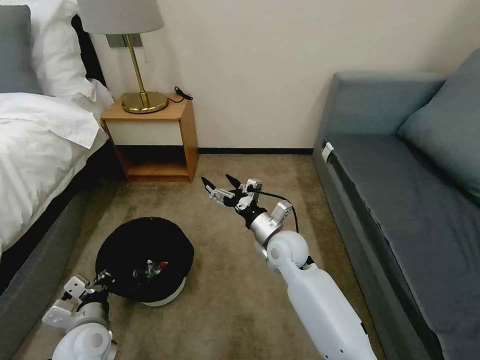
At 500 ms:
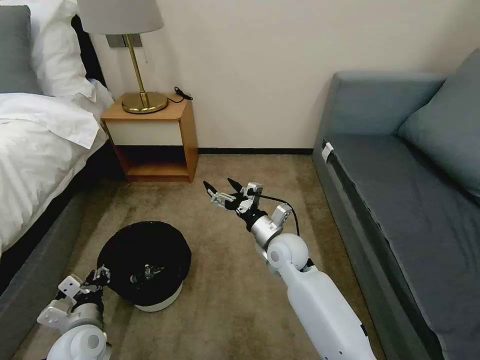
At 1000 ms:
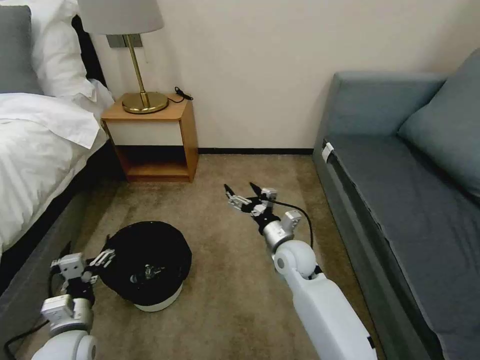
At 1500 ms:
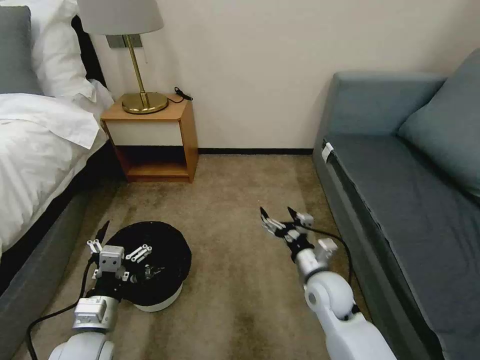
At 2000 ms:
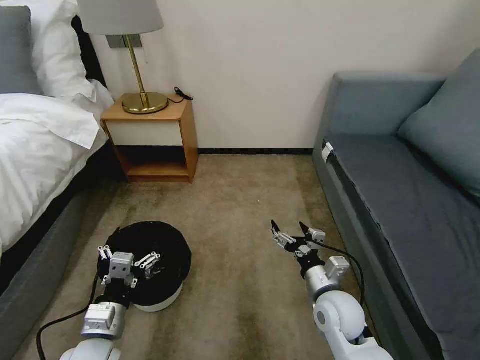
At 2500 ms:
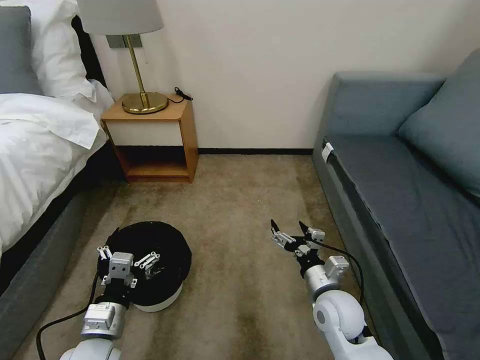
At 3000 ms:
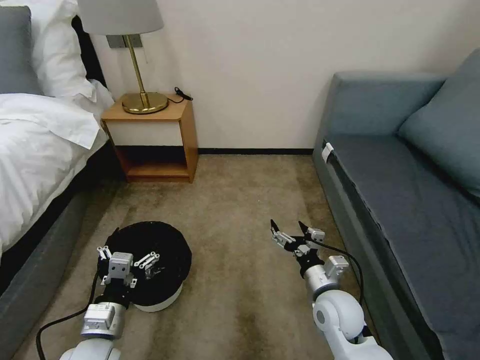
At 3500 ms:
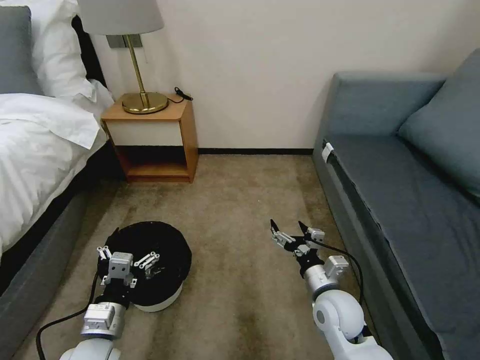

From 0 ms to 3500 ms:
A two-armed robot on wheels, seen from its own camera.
Task of the whole recording: Pick up the trash bin, then pick up the garbage on the floor and place it into the trash bin.
From 0 ms to 2000 ms: The left gripper ends up roughly 5 cm from where it was, and opens. Meanwhile the right gripper travels backward and to the right by about 15 cm.
From 2000 ms to 3500 ms: The two grippers keep their place.

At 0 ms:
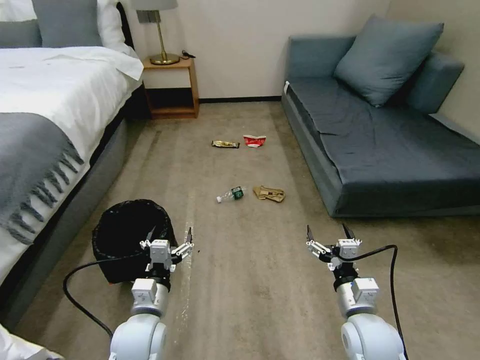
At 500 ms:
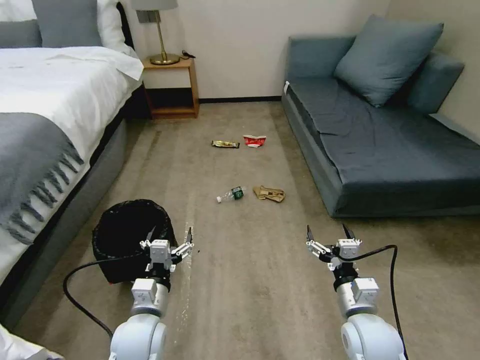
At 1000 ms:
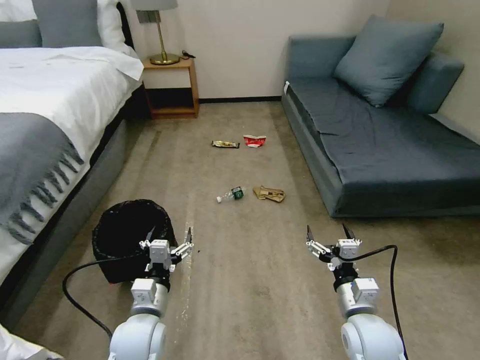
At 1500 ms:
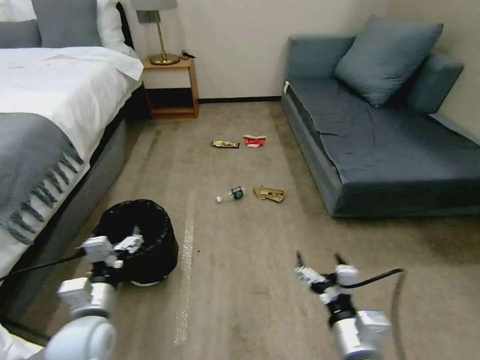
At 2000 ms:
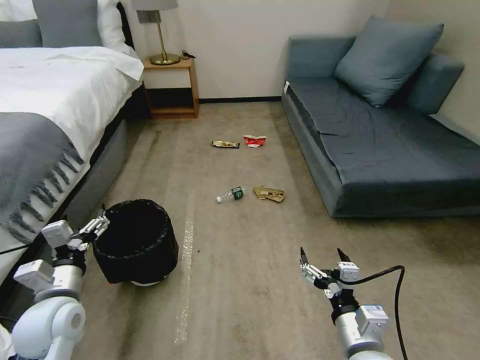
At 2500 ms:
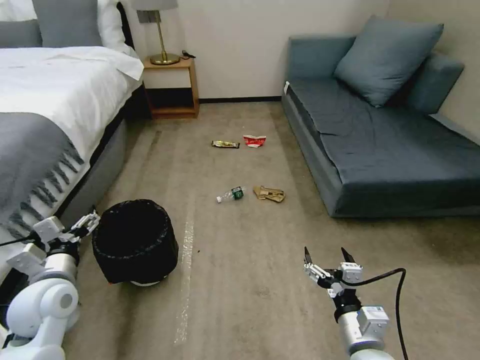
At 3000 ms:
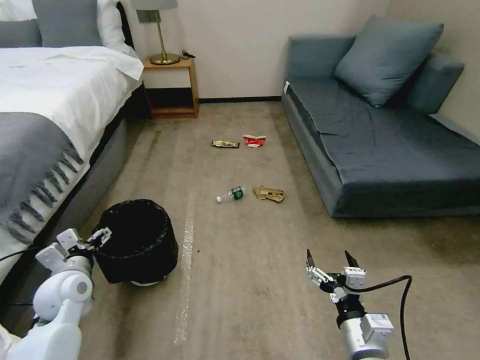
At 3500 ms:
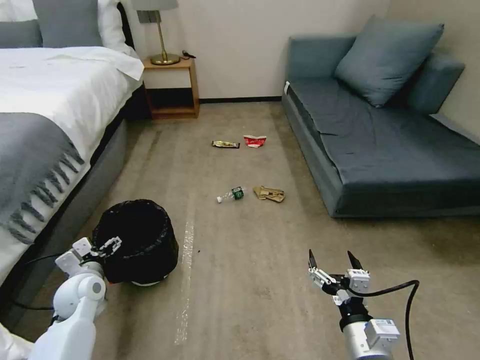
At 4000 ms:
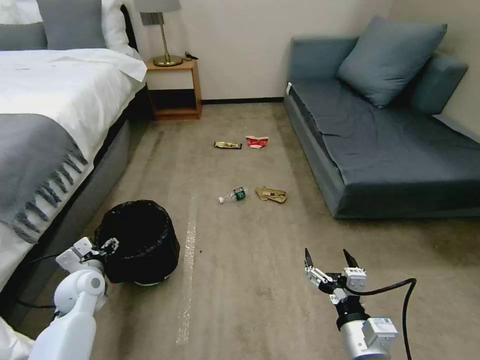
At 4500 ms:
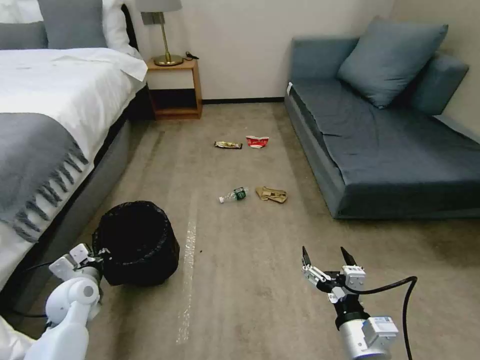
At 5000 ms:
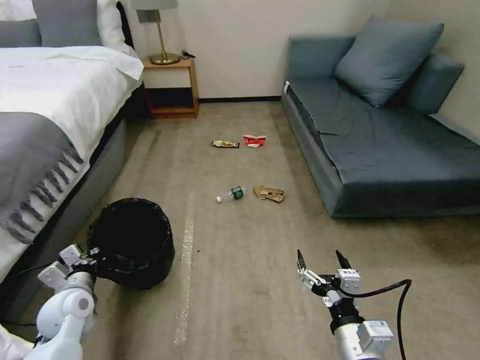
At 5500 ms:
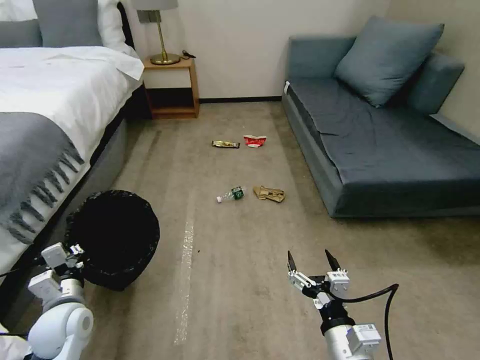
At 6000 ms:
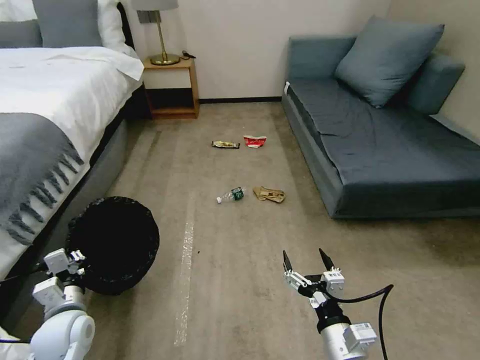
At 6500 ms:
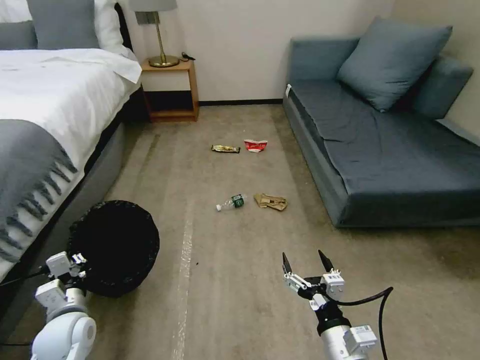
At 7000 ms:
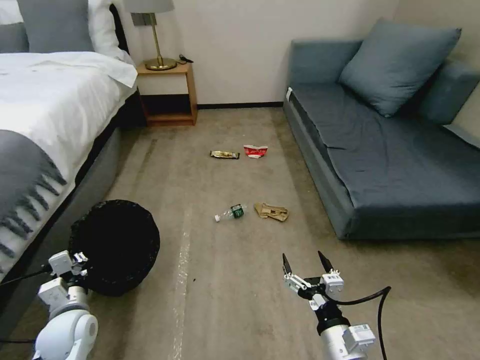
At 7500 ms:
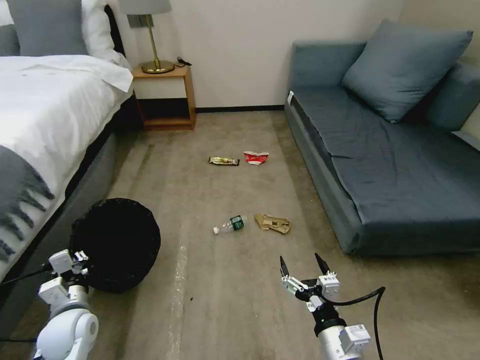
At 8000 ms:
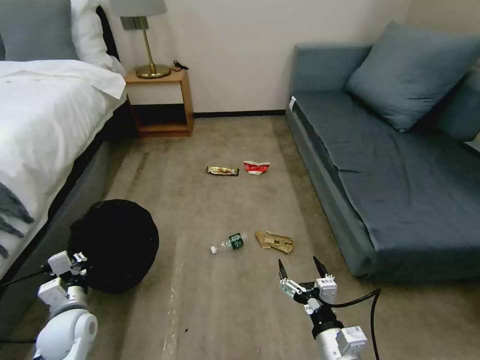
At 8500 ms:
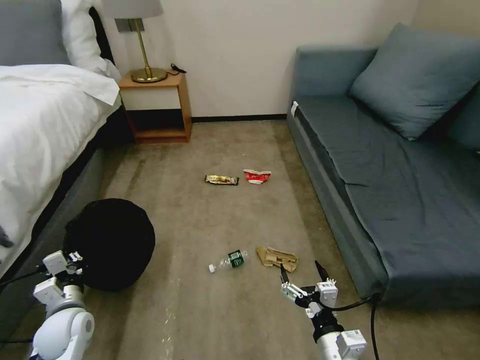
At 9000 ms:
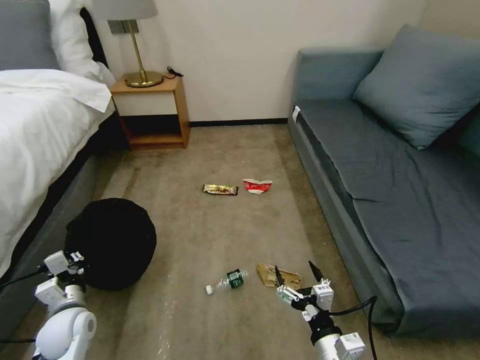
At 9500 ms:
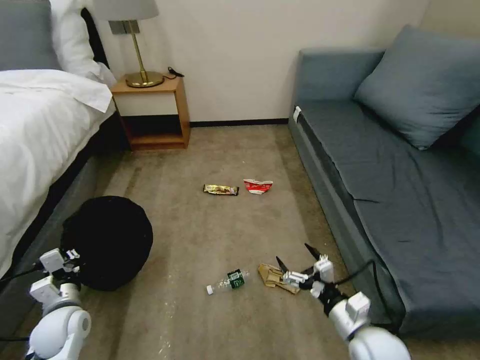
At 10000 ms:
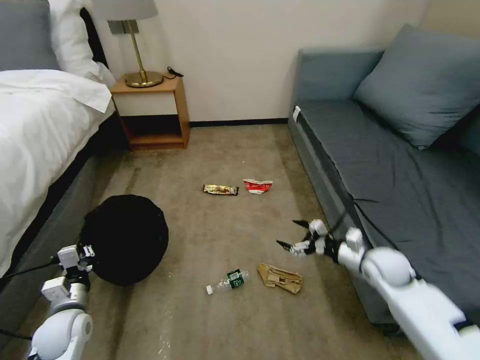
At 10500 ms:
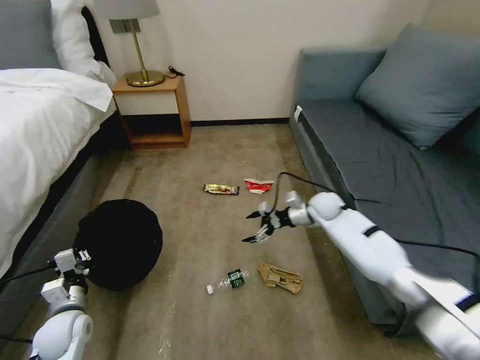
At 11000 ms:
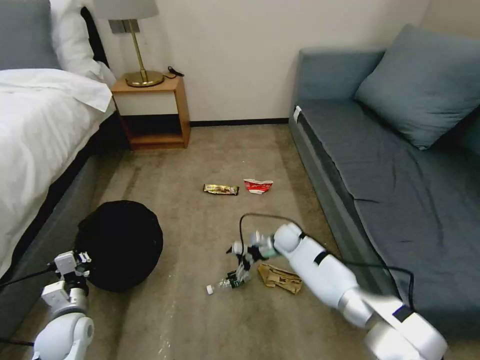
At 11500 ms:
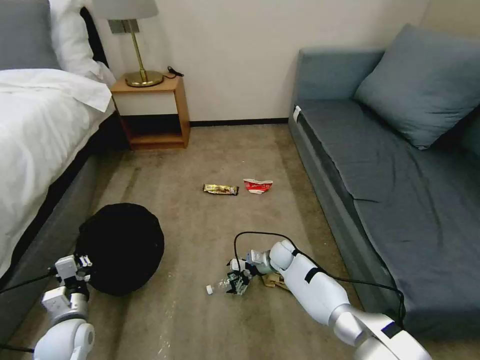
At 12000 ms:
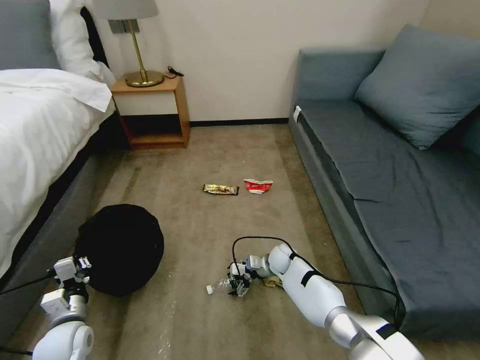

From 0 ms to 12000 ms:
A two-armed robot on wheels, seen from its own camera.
Task of the whole recording: Pick up the trash bin, then pick up the garbage on the floor and place it into the trash bin.
From 2000 ms to 4000 ms: The left gripper heads forward and downward, covering approximately 15 cm.
From 4000 ms to 6000 ms: The left gripper is displaced backward by roughly 10 cm, and closes.
From 8000 ms to 10000 ms: The right gripper goes approximately 30 cm forward and to the right.
From 10000 ms to 12000 ms: The right gripper travels to the left, downward and forward by approximately 30 cm.

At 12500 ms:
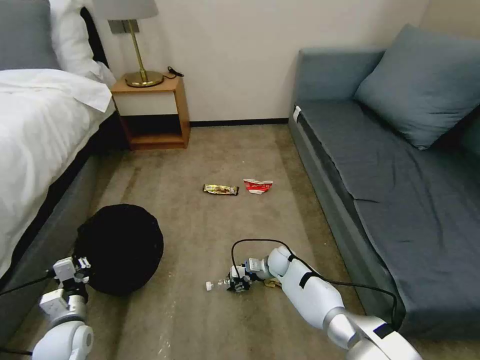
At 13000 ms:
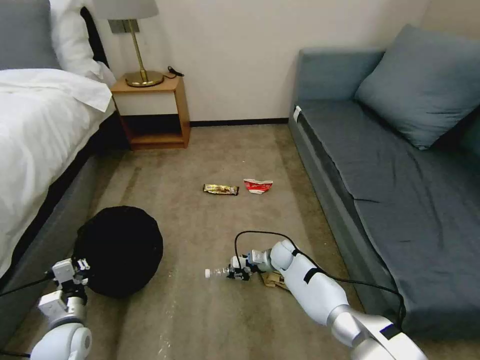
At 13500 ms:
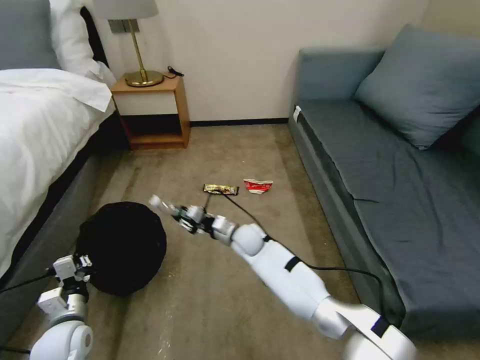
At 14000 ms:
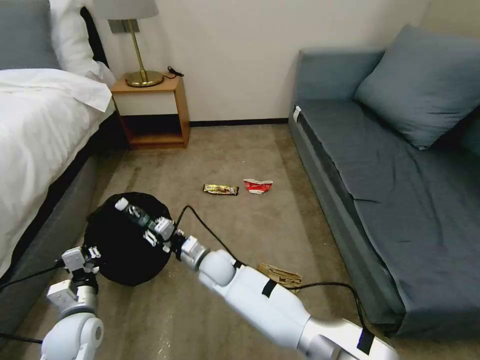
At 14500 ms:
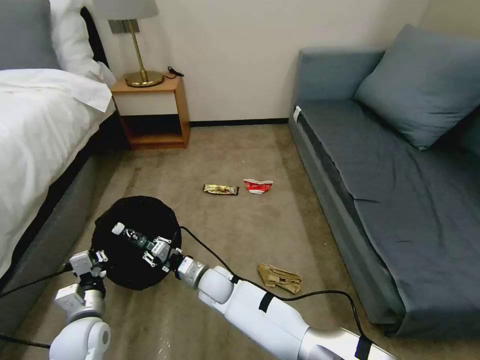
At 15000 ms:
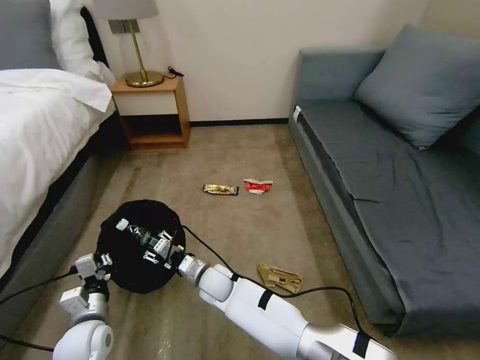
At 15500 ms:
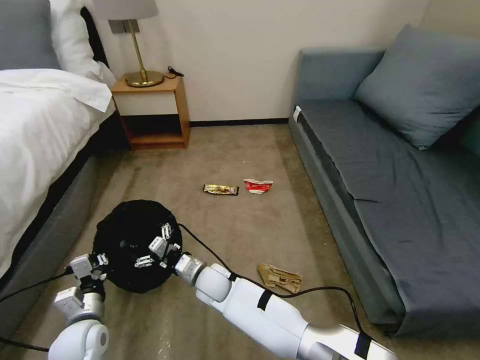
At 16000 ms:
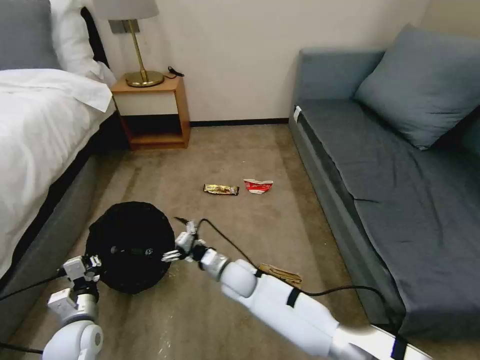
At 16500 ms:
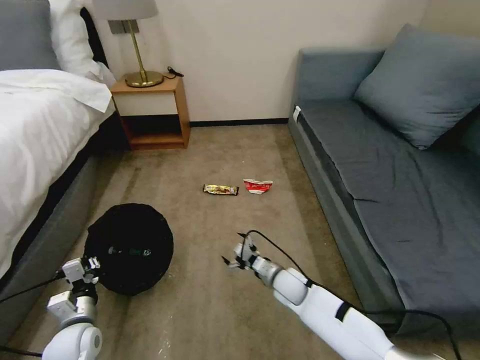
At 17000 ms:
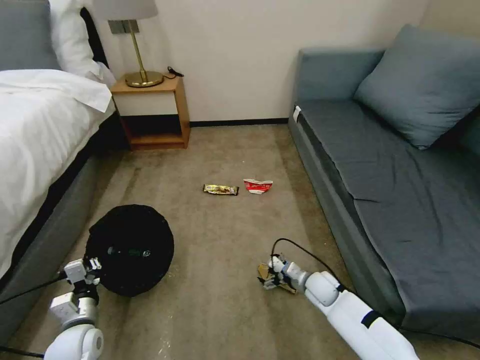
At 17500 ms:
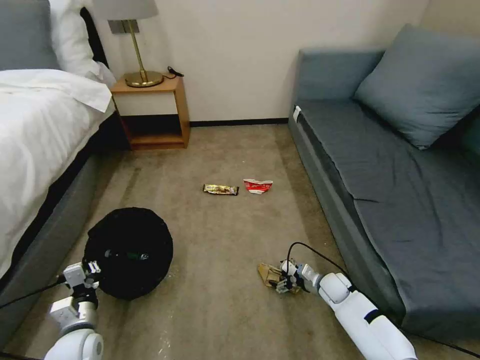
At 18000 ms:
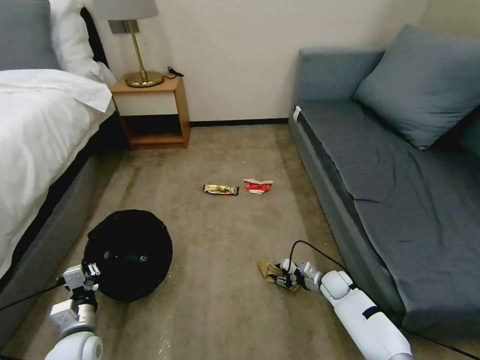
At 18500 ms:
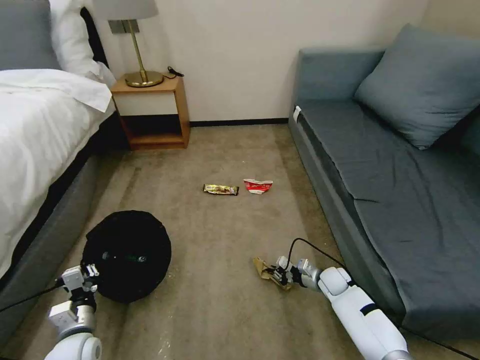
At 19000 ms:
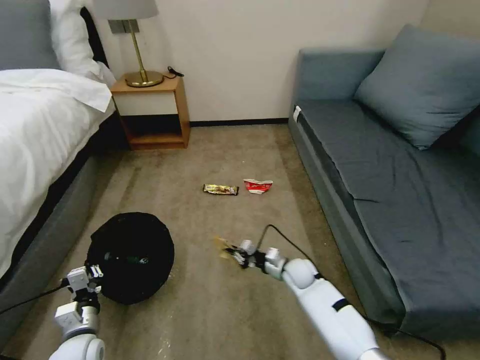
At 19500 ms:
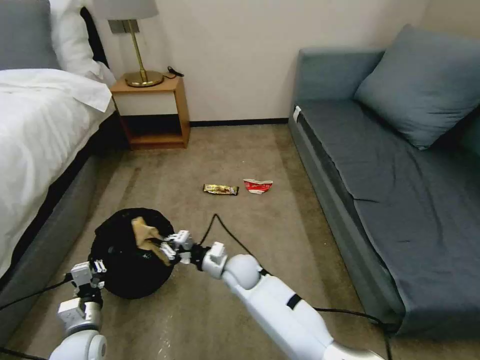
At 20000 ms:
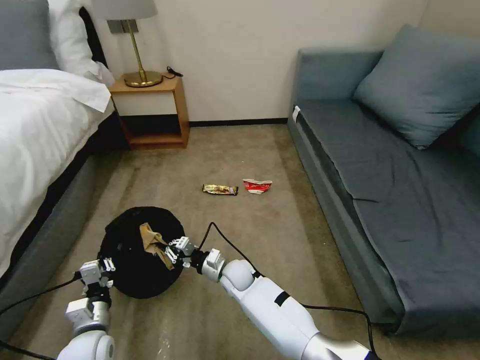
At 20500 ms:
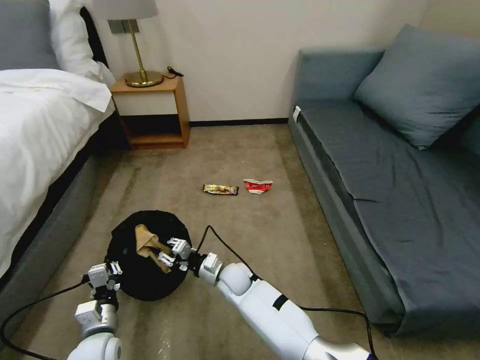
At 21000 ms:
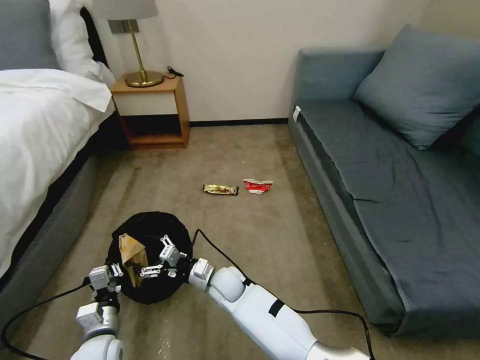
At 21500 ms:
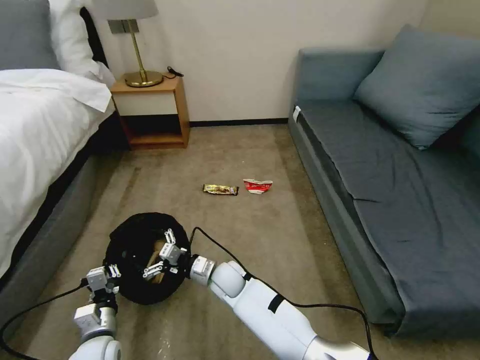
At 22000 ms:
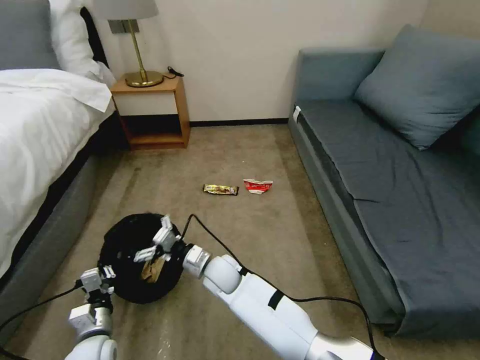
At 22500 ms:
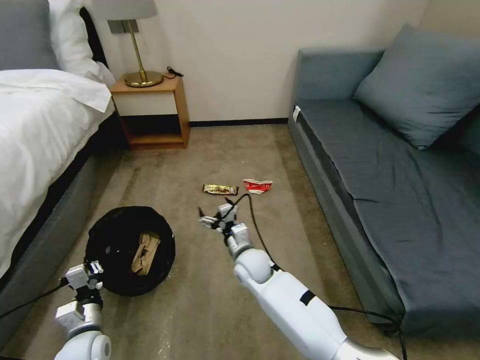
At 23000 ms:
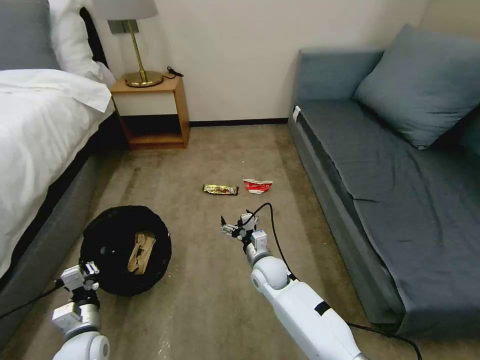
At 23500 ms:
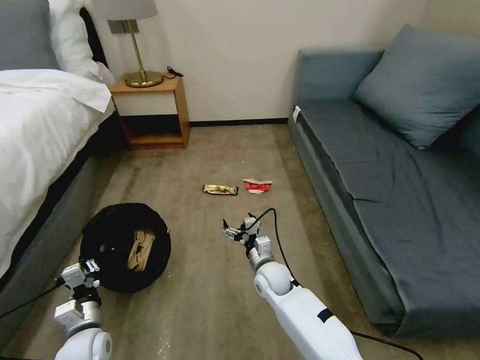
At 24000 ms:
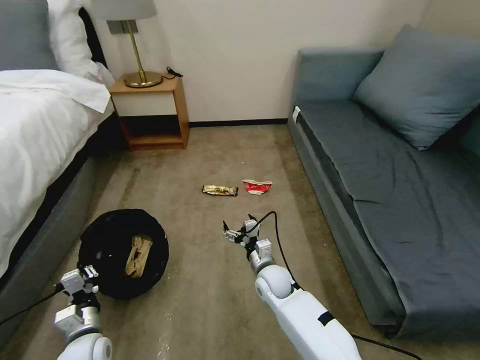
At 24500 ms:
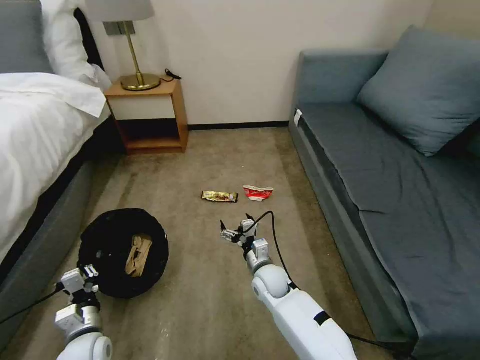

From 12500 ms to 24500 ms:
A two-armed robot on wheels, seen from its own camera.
Task of the whole recording: Pick up the trash bin, then pick up the garbage on the floor and place it into the trash bin.
From 12500 ms to 14500 ms: The right gripper shifts some 25 cm to the left, backward and upward. Meanwhile the left gripper goes approximately 5 cm to the right.
From 14500 ms to 16500 ms: The right gripper travels to the right by about 20 cm, and opens its fingers.
From 16500 ms to 18500 ms: The right gripper heads to the right, covering approximately 15 cm, and closes its fingers.
From 18500 ms to 20500 ms: The right gripper goes about 30 cm to the left.
From 20500 ms to 22500 ms: The right gripper heads upward and to the right, covering about 10 cm, and opens.
From 22500 ms to 24500 ms: The right gripper shifts some 5 cm to the right and downward.
